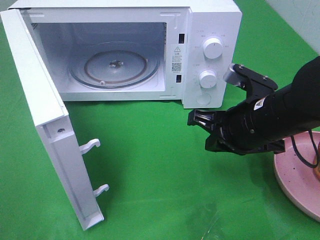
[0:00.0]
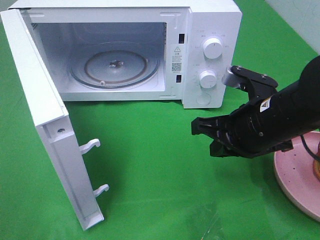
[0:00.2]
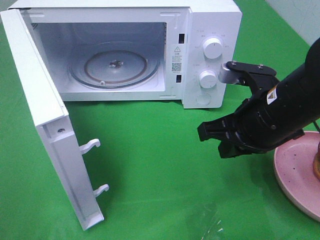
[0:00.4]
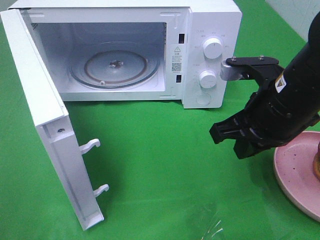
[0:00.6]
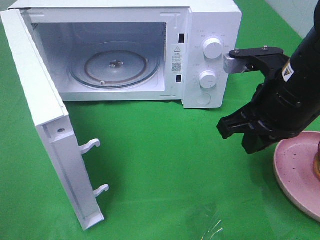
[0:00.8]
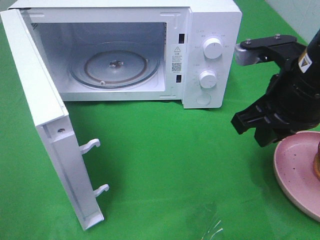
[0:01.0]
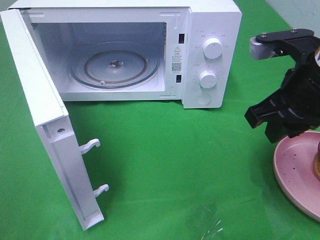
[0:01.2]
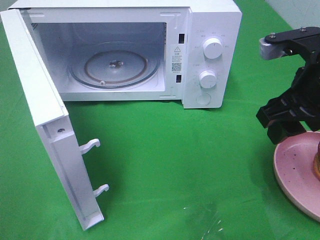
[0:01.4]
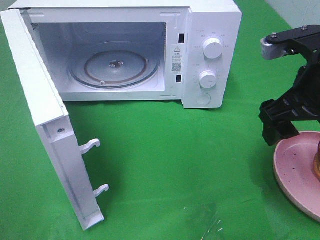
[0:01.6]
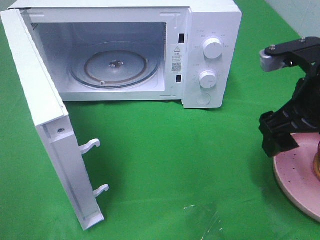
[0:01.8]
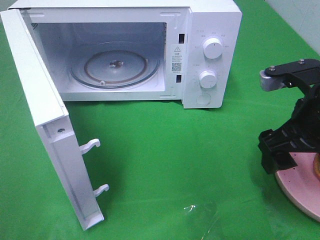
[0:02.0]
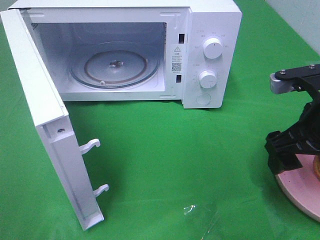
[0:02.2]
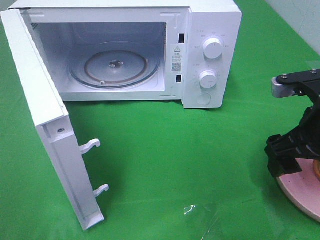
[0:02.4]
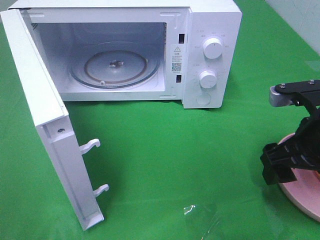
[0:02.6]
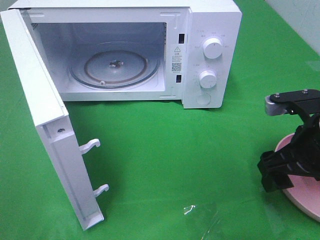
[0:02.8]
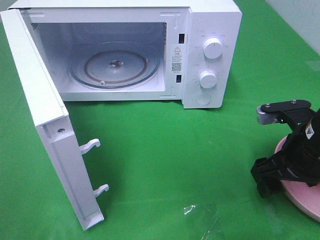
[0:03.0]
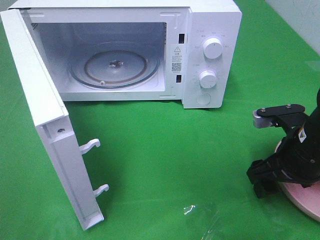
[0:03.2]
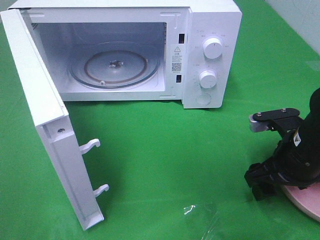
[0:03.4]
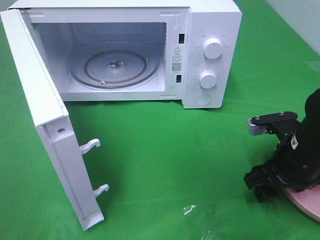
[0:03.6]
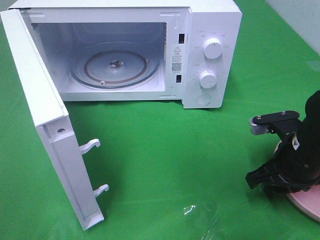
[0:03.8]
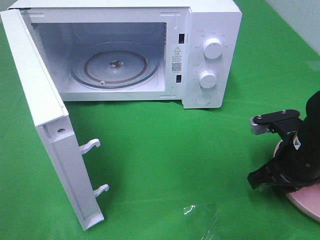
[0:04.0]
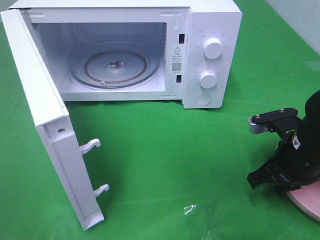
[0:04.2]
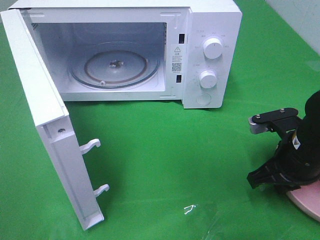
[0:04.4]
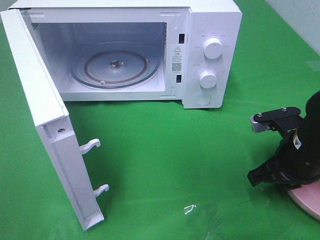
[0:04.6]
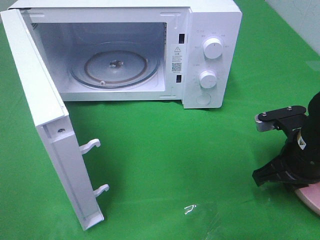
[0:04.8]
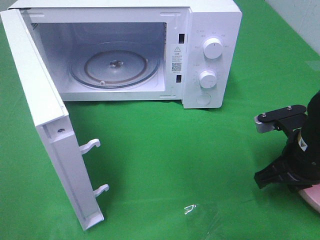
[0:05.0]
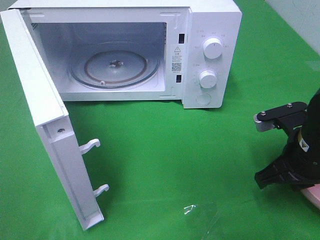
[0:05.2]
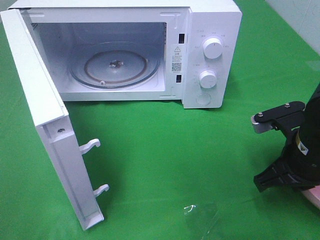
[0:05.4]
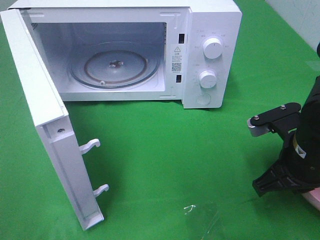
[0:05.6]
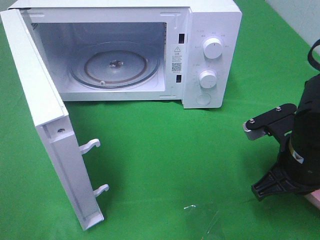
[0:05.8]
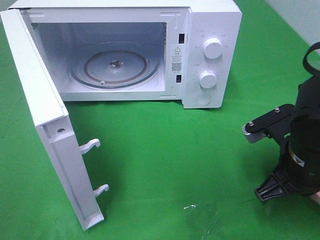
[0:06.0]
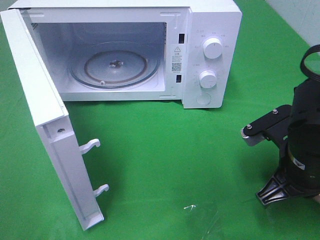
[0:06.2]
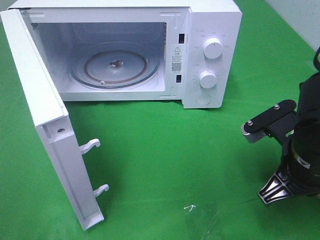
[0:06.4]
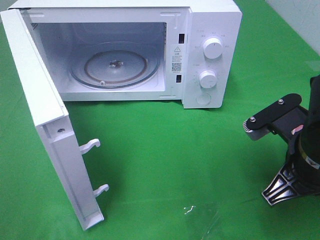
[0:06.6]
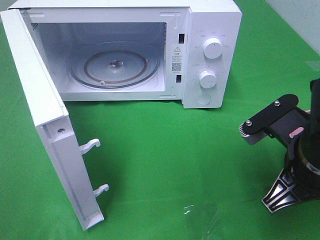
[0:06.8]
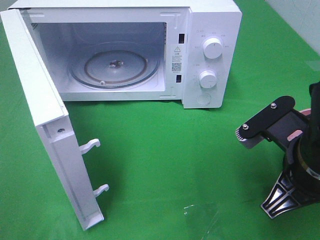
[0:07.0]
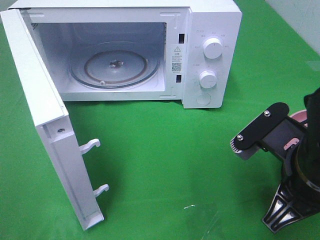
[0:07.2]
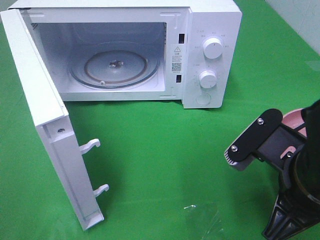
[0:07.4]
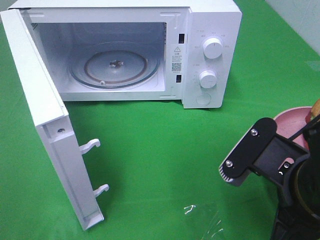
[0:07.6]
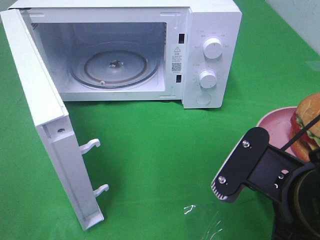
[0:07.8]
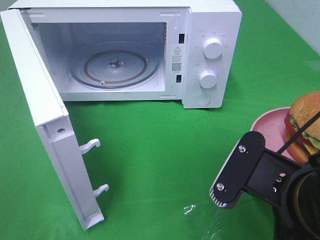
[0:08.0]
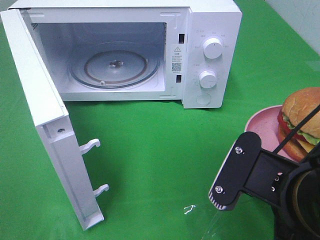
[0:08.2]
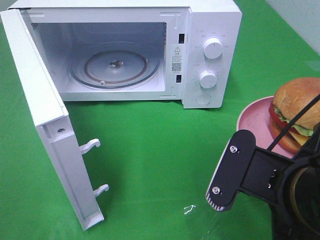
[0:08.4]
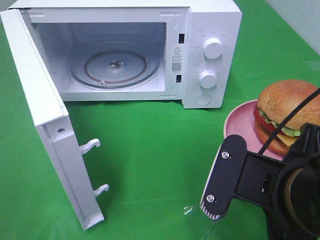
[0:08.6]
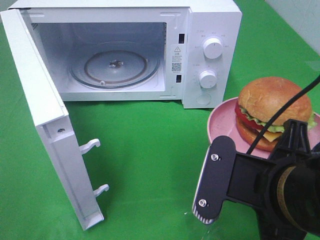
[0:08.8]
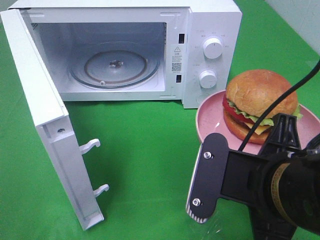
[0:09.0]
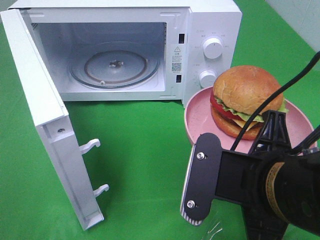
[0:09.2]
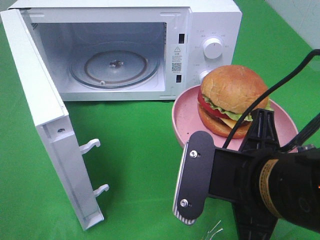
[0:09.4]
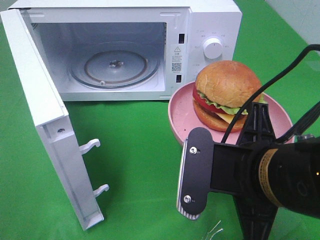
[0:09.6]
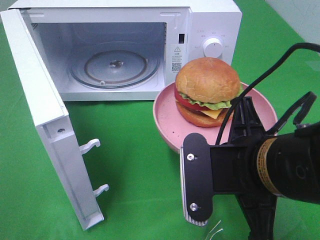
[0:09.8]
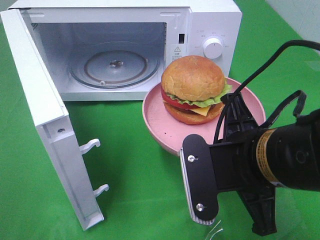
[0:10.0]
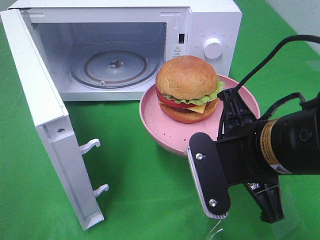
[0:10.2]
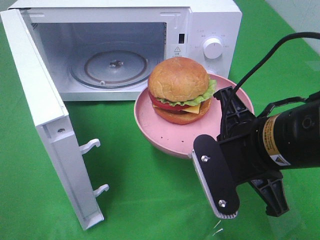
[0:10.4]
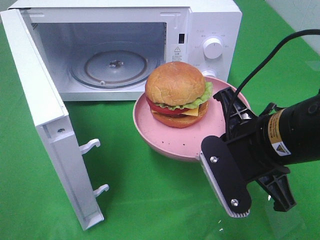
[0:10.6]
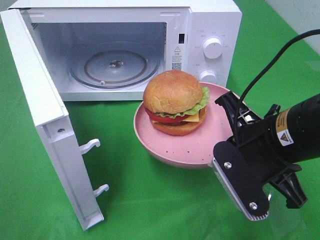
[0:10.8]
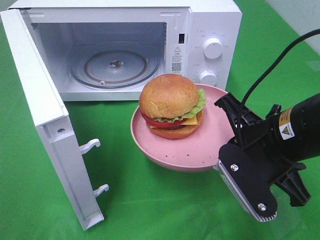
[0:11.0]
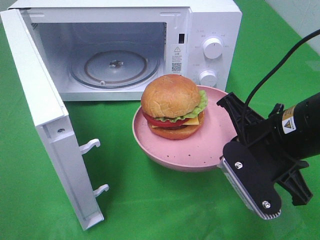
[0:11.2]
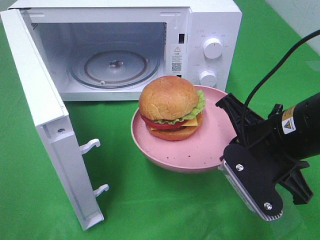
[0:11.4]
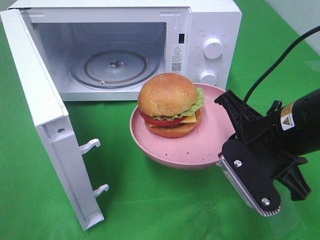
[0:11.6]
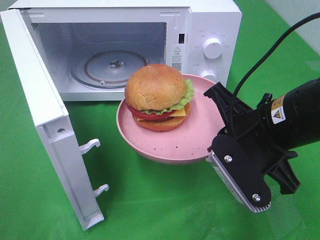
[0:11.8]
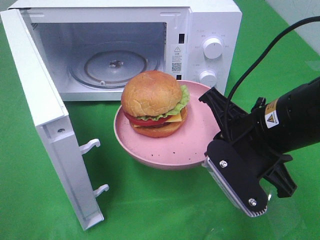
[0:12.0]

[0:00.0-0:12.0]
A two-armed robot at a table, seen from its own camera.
Task of the whole recording: Heat the burger.
Step, 0:00.0 to 0:04.0: Right hand: grab the plate with the hamburger.
0:00.0 to 0:01.6: The right gripper heads upward and to the right, covering about 10 cm, and opens.
0:01.6 to 0:03.0: The right gripper shifts some 10 cm downward.
0:03.0 to 0:04.4: The right gripper closes.
0:04.4 to 0:06.0: The right gripper ends up roughly 5 cm from where it was.
0:06.0 to 0:07.6: The right gripper moves backward, roughly 10 cm.
0:09.0 to 0:10.4: The right gripper is displaced forward by about 5 cm.
0:10.4 to 0:12.0: The grippers make only small movements.

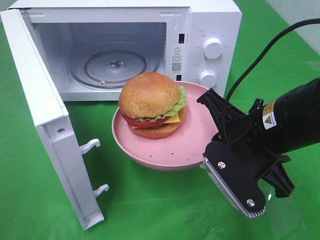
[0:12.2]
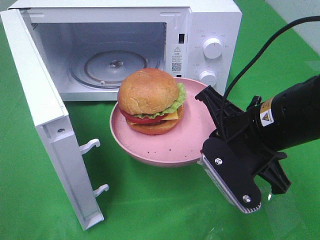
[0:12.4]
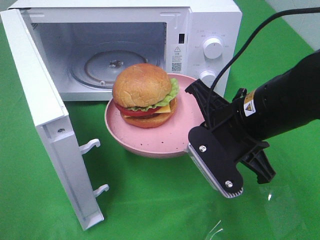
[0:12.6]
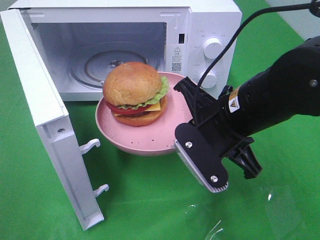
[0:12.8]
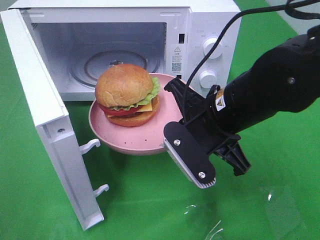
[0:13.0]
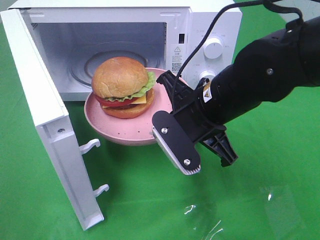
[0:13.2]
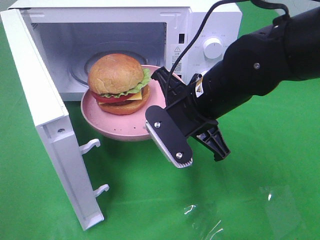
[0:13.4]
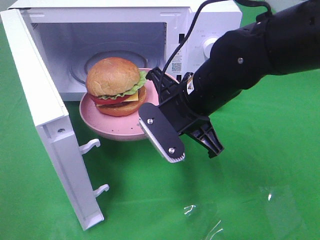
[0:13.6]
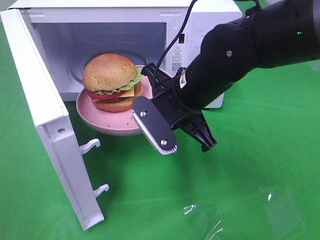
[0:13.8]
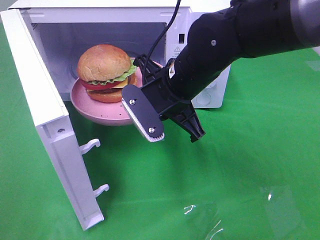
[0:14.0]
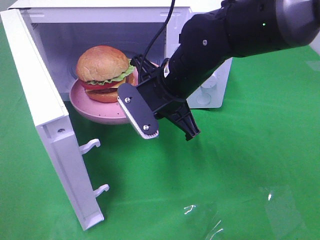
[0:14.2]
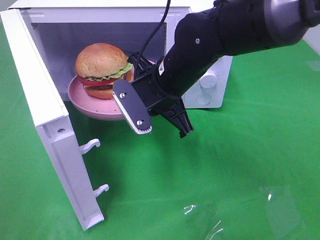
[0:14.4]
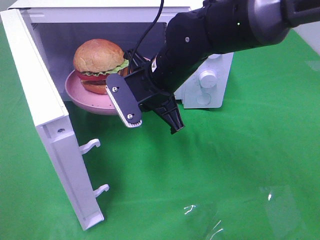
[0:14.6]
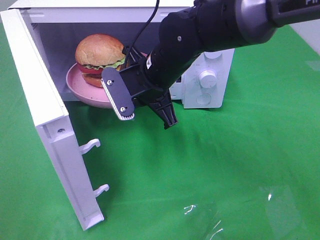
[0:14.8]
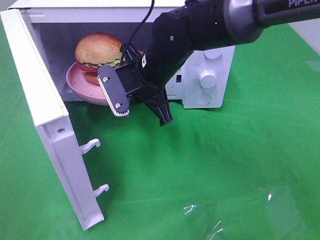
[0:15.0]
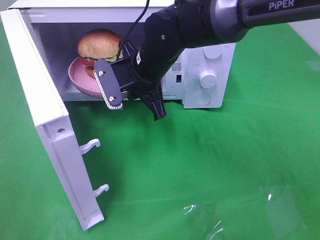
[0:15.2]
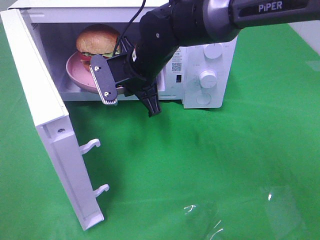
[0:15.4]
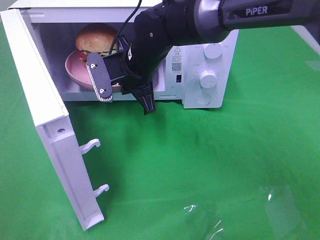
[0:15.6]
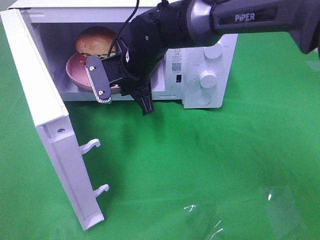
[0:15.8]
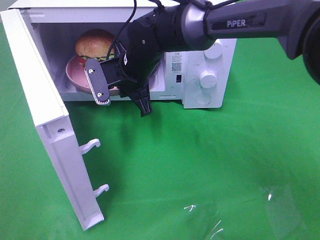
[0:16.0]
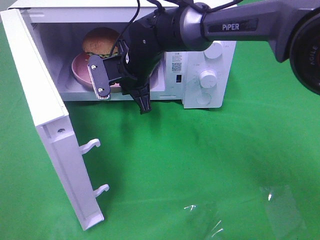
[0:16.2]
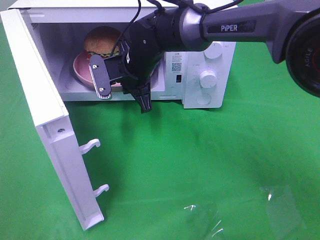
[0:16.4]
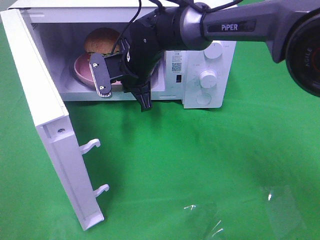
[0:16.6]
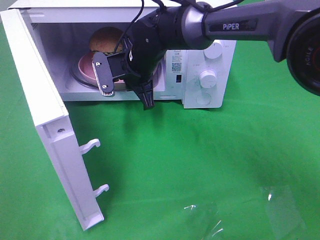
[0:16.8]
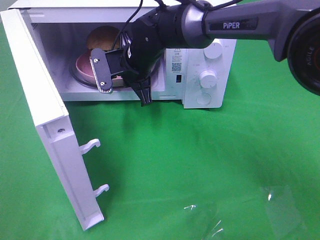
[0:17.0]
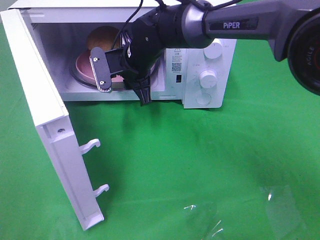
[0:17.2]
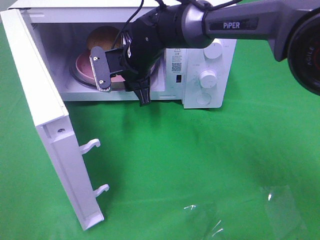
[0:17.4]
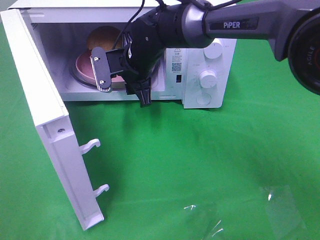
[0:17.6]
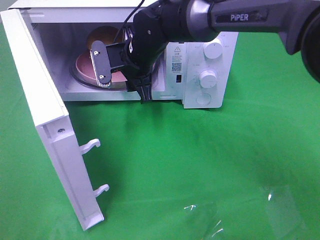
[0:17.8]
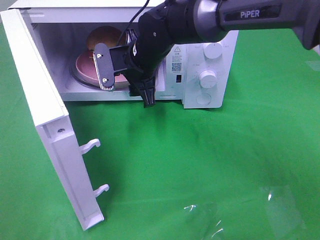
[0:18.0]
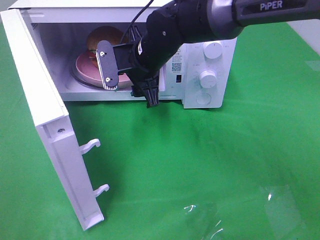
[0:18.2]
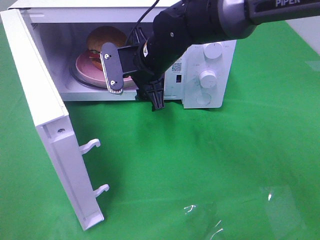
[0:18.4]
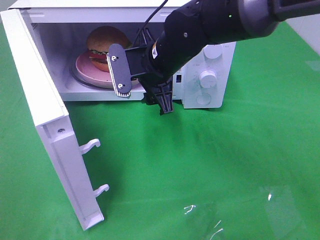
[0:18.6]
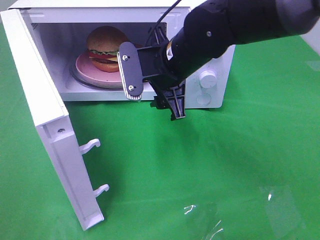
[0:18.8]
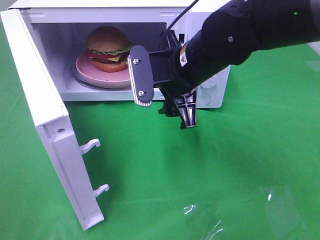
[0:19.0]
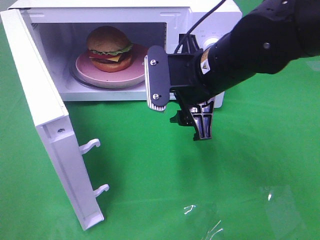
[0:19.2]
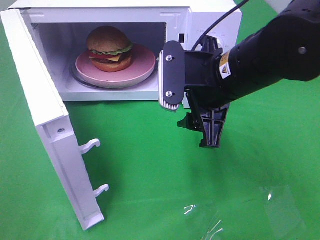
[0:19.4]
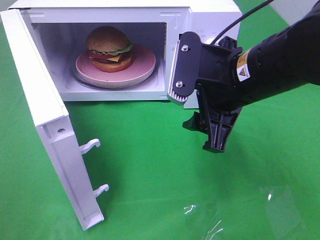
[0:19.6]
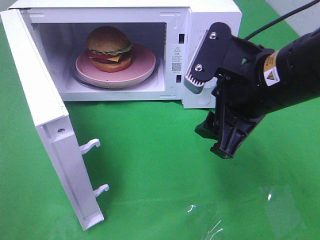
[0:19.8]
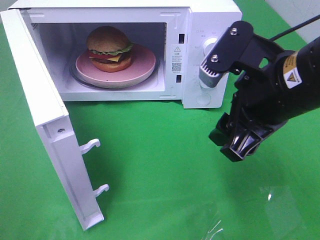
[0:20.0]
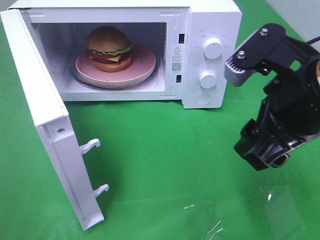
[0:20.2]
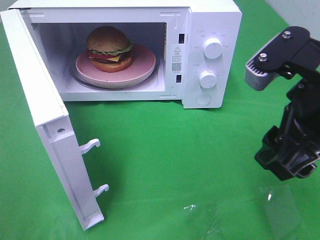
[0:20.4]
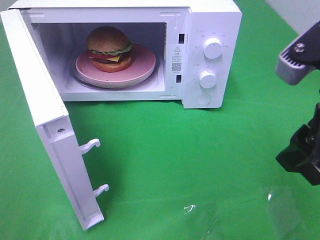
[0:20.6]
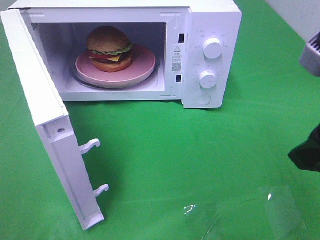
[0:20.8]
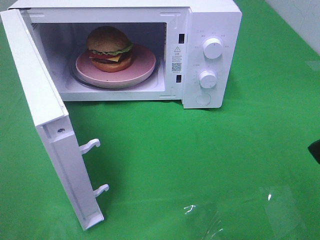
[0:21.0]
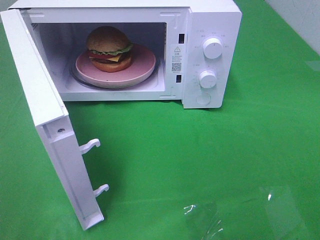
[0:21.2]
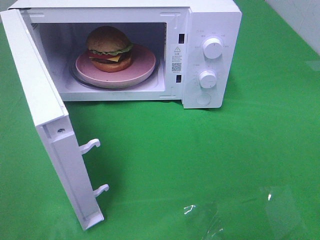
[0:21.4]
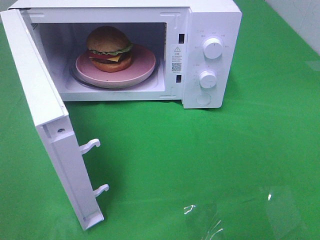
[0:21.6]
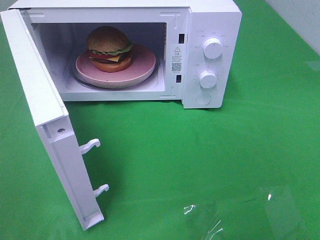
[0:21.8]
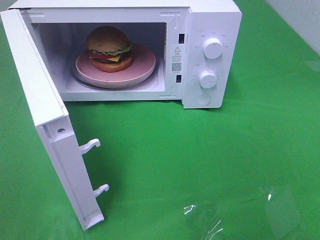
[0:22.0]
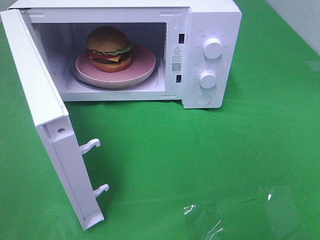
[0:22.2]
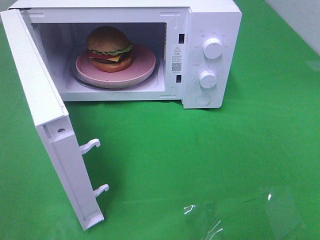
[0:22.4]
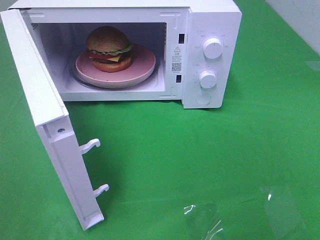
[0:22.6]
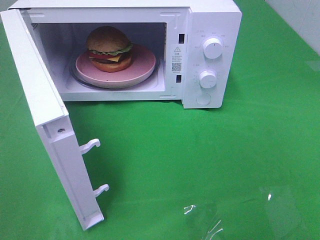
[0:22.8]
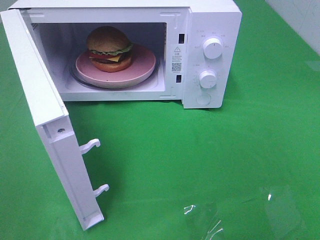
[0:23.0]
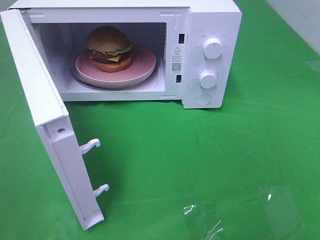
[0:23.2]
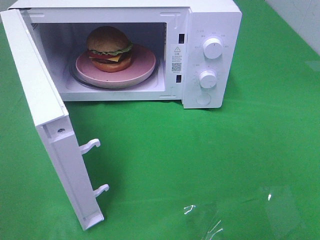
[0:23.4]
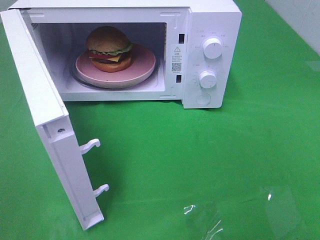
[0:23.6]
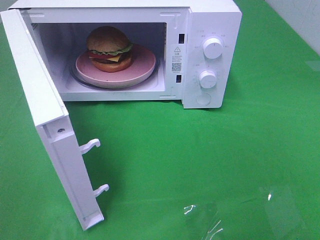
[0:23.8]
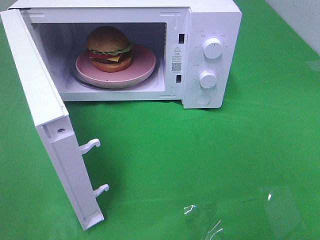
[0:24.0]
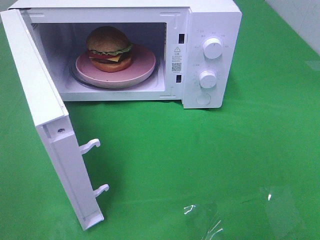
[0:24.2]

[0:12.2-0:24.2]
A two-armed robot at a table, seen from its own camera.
Task of the whole recording: Heat the burger.
Step, 0:12.2 to 0:18.2: Right hand: place the plate in the microwave.
0:12.2 to 0:13.8: The right gripper travels forward and to the left by some 10 cm.
0:13.8 to 0:15.2: The right gripper heads forward and to the left, covering roughly 10 cm.
0:15.2 to 0:16.6: The right gripper moves forward, some 5 cm.
0:16.6 to 0:18.2: The right gripper opens its fingers.
0:18.2 to 0:19.8: The right gripper goes about 20 cm backward and to the right.
0:19.8 to 0:21.2: The right gripper goes some 15 cm to the right, backward and upward.
0:22.6 to 0:24.2: Both grippers stay about where they are.
